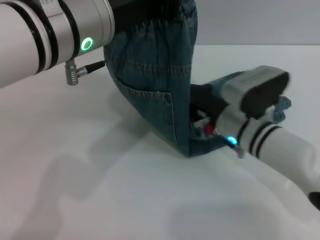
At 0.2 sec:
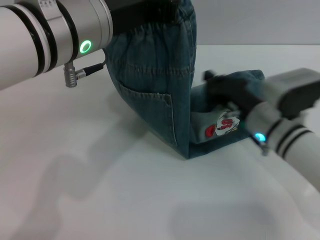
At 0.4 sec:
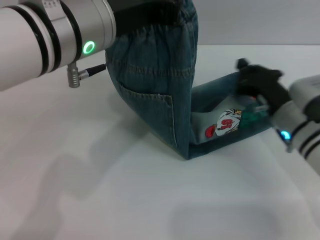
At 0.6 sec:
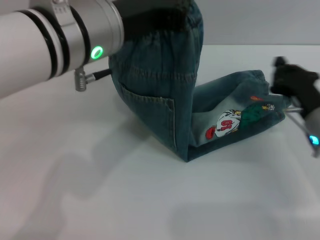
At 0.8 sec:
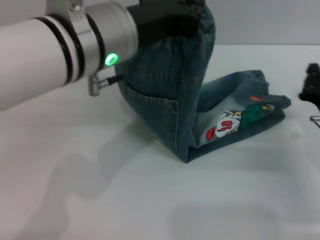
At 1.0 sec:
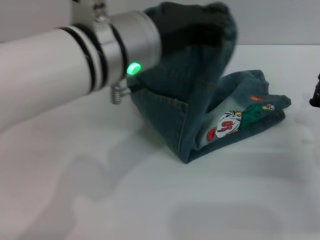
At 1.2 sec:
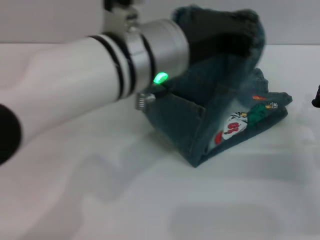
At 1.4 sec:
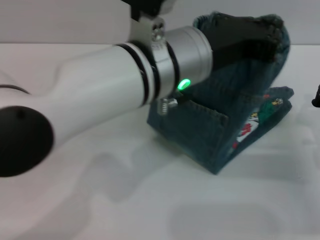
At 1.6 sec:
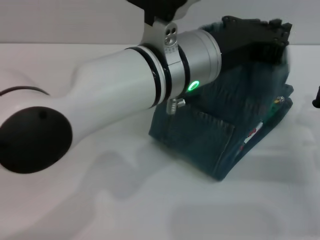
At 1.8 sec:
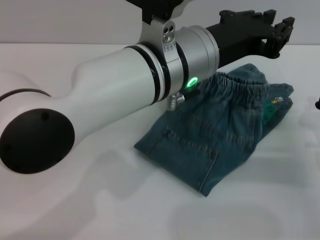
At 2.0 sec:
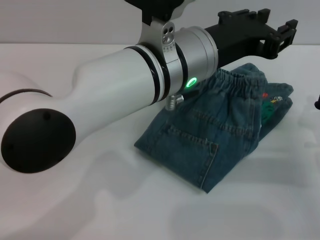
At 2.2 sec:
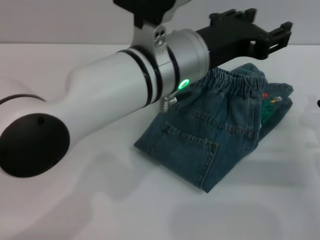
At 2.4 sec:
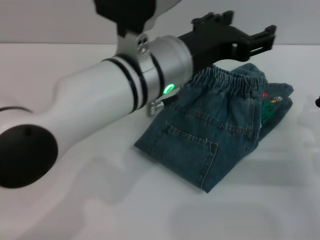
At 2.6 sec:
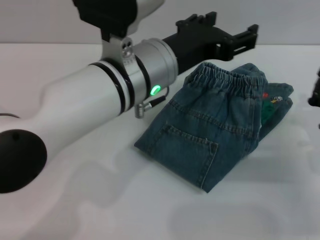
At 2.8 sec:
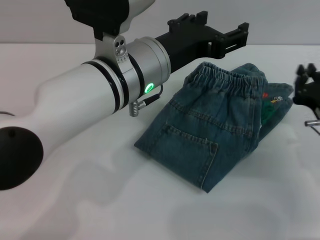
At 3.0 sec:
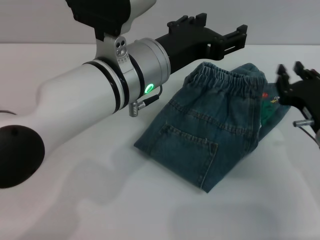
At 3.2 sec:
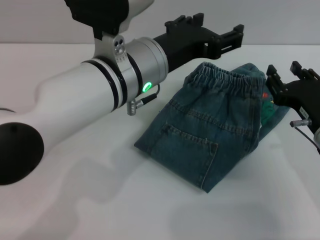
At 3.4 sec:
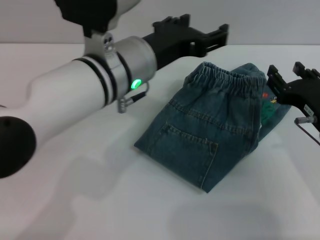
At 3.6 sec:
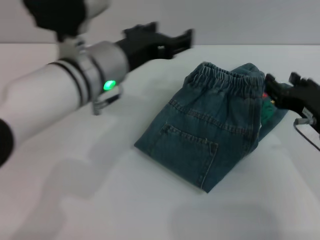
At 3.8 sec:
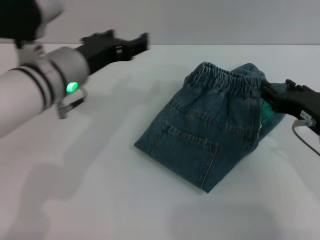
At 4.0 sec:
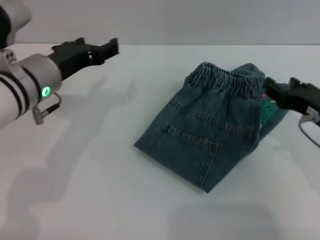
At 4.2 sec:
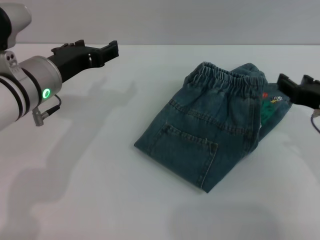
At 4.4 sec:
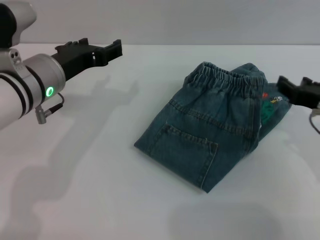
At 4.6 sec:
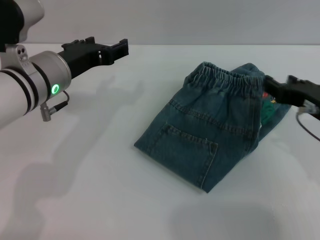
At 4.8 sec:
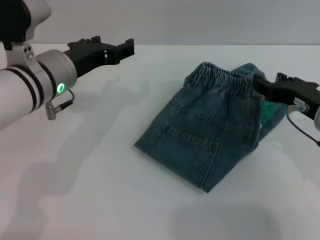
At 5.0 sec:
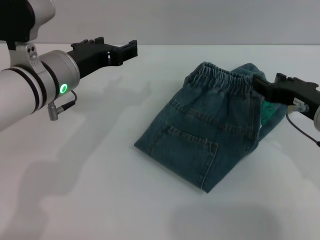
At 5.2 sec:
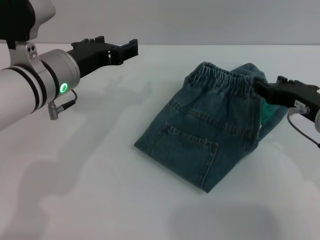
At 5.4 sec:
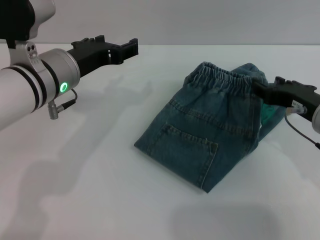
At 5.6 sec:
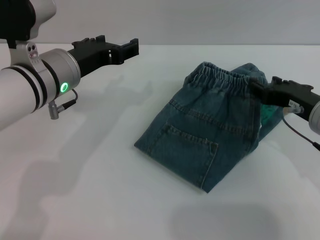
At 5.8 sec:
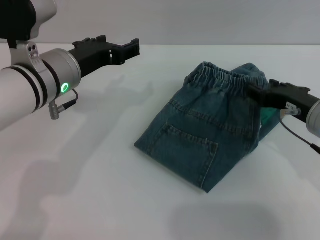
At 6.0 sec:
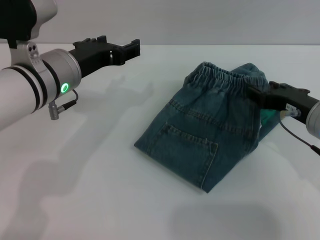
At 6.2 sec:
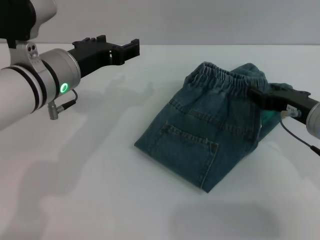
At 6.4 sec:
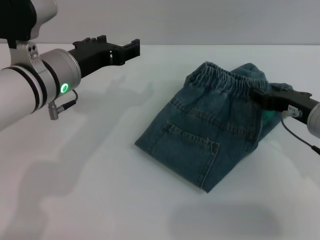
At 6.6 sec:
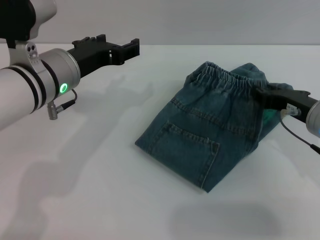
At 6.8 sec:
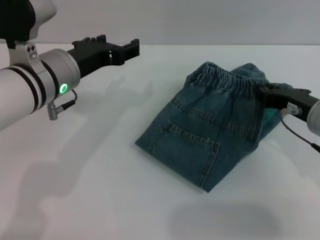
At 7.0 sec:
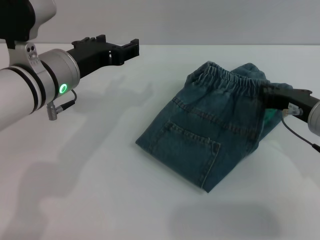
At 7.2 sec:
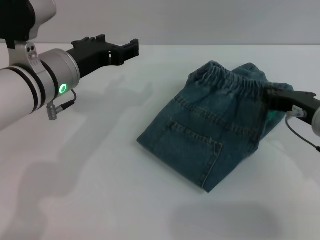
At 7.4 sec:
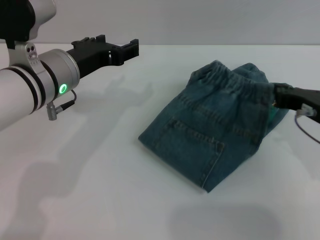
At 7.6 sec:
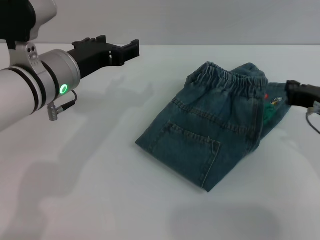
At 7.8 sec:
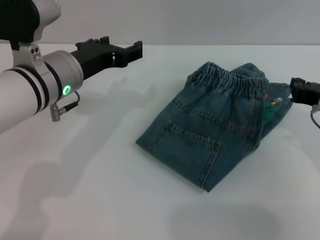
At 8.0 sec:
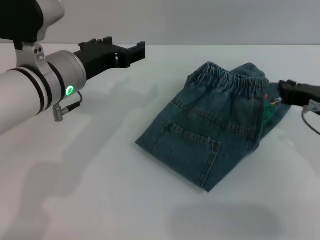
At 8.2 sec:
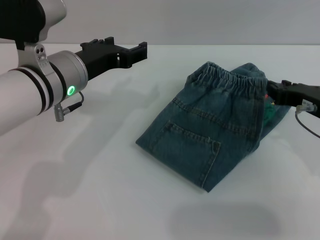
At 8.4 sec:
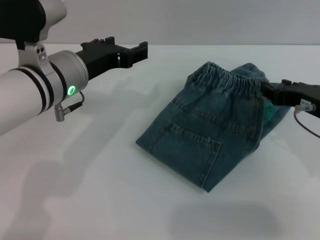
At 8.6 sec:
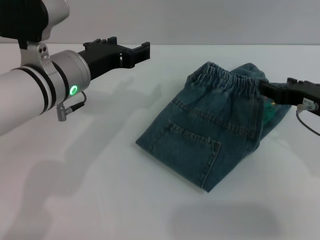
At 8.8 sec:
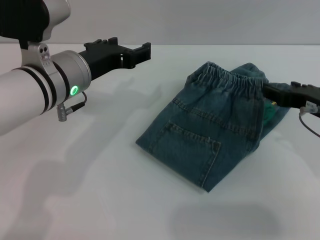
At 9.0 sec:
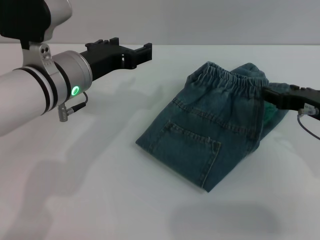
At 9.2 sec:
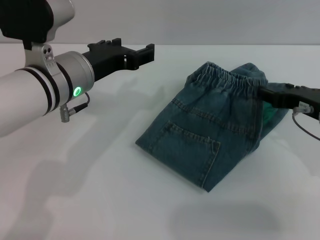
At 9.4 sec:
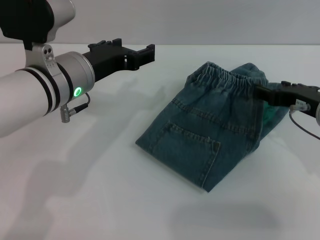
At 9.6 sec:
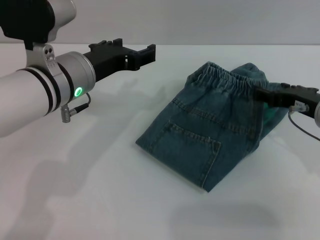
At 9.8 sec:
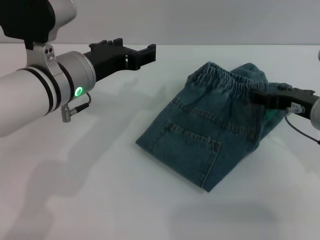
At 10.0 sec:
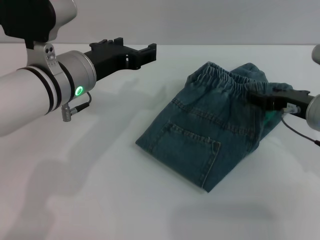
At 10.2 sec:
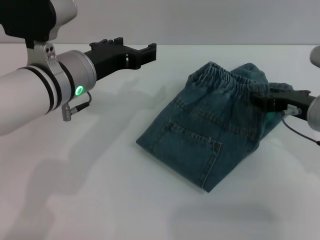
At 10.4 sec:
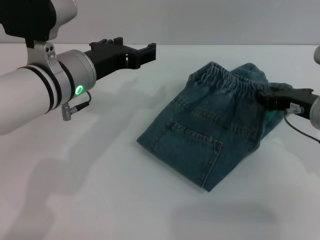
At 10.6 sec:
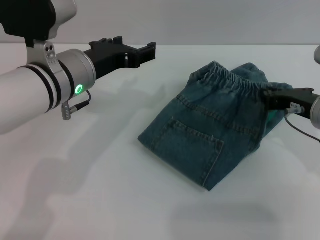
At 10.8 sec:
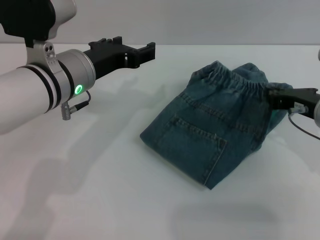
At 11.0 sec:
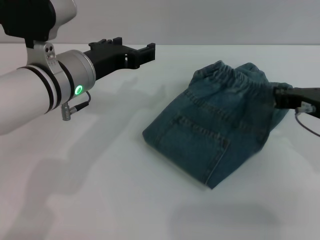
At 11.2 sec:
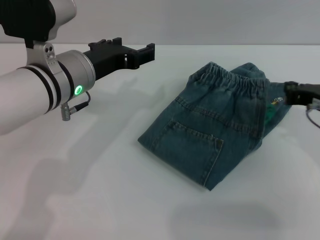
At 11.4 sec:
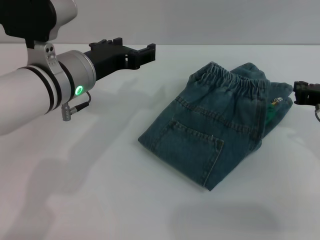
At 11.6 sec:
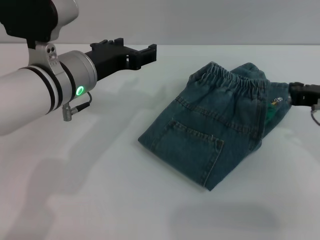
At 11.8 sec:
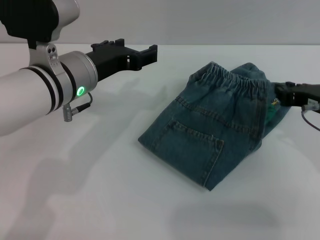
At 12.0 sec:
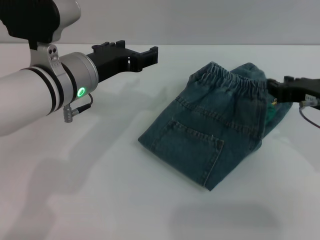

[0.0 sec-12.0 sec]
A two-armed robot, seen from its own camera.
Step, 0.0 sec to 2.0 sec: Fold the pants from left to right with the left gripper.
0.0 sec to 1.6 sec: The right gripper heads to the right, covering some 15 cm. The left gripper is displaced to the right by roughly 10 cm.
1.6 sec to 3.0 sec: The right gripper moves approximately 5 cm; the left gripper changes place by approximately 5 cm, and opens up.
3.0 sec to 4.4 sec: The right gripper goes approximately 5 cm upward, and opens its fingers. Meanwhile the left gripper shifts some 10 cm to the left.
4.4 sec to 6.0 sec: There are only small adjustments of the grippers.
6.0 sec to 7.6 sec: The right gripper closes.
7.6 sec to 9.0 sec: The right gripper opens up.
9.0 sec to 10.4 sec: There are only small adjustments of the grippers.
10.4 sec to 12.0 sec: The right gripper closes up.

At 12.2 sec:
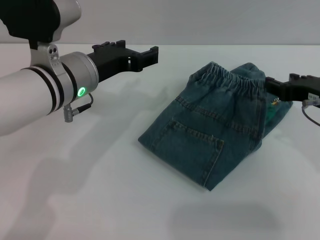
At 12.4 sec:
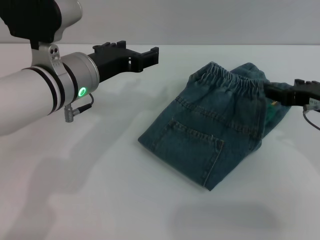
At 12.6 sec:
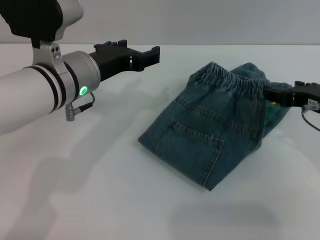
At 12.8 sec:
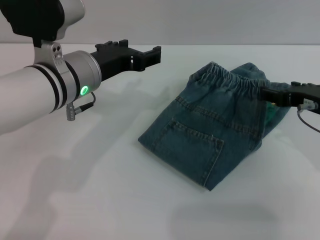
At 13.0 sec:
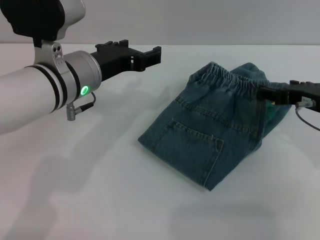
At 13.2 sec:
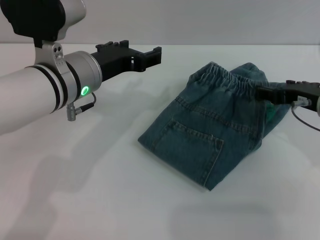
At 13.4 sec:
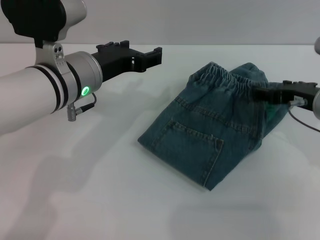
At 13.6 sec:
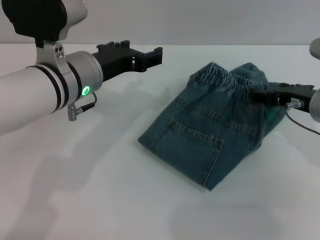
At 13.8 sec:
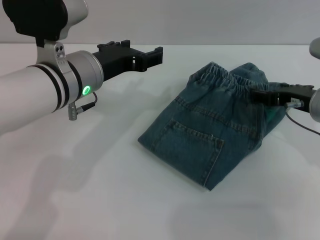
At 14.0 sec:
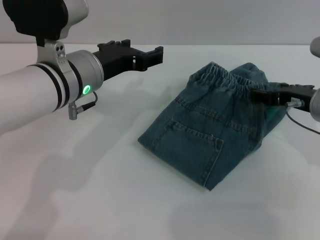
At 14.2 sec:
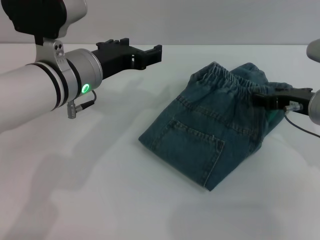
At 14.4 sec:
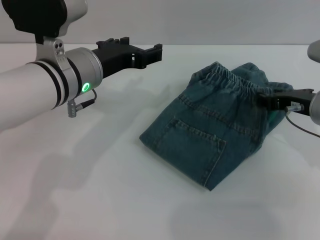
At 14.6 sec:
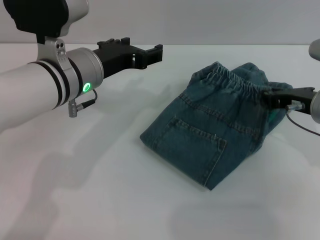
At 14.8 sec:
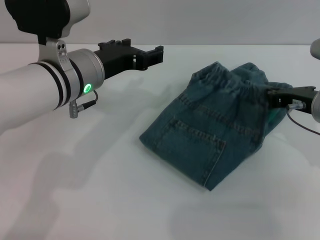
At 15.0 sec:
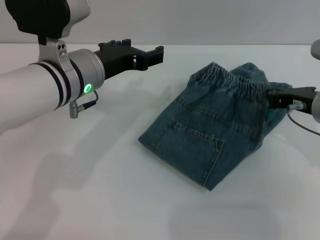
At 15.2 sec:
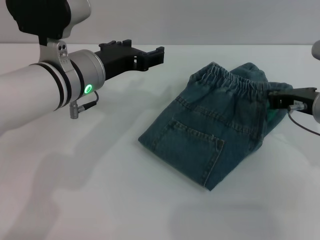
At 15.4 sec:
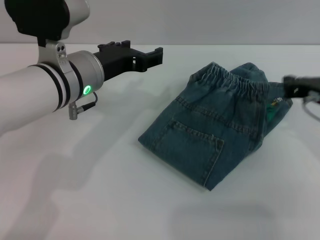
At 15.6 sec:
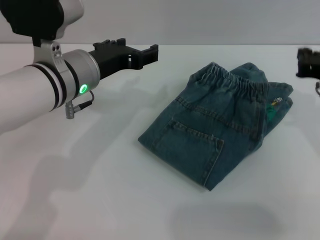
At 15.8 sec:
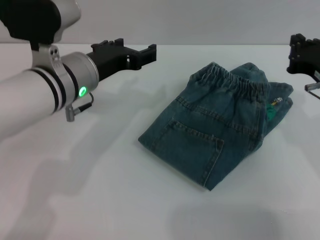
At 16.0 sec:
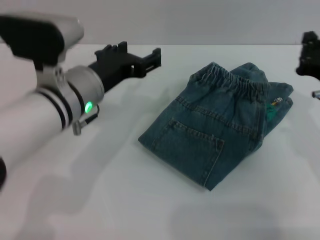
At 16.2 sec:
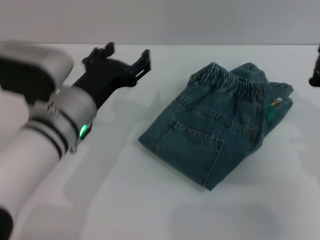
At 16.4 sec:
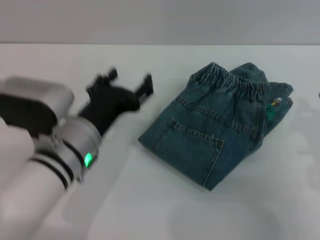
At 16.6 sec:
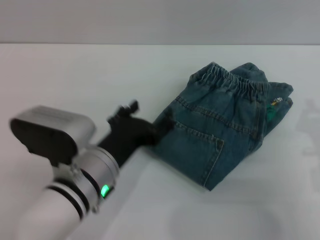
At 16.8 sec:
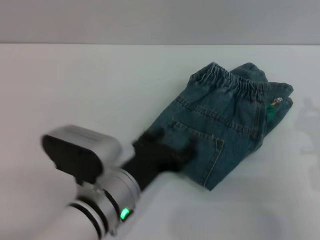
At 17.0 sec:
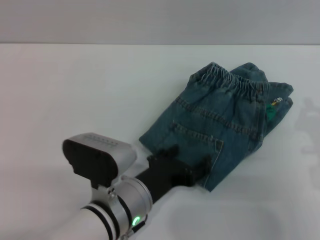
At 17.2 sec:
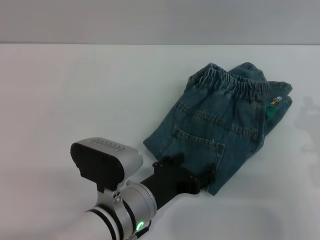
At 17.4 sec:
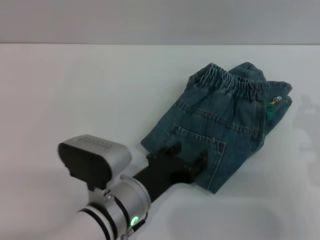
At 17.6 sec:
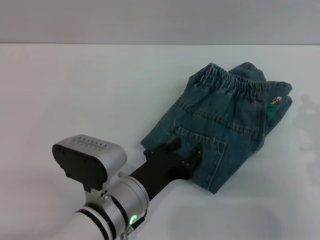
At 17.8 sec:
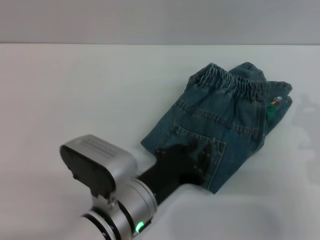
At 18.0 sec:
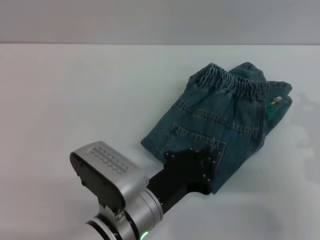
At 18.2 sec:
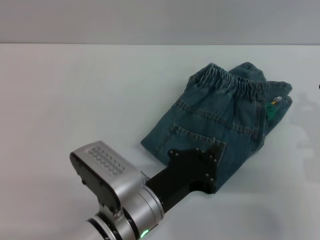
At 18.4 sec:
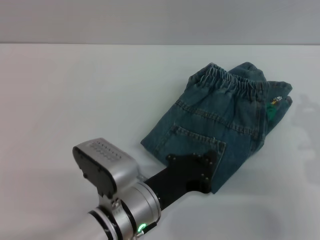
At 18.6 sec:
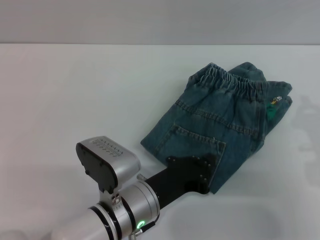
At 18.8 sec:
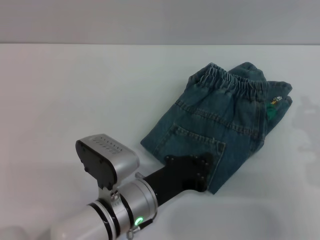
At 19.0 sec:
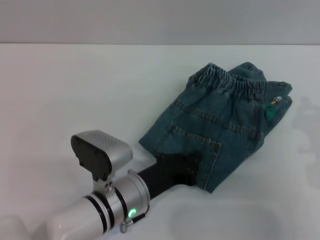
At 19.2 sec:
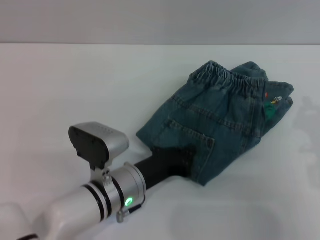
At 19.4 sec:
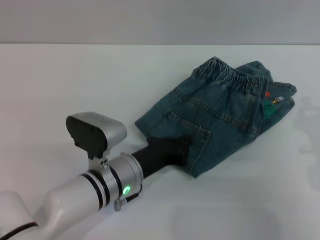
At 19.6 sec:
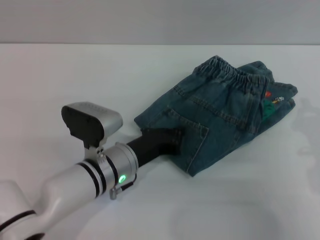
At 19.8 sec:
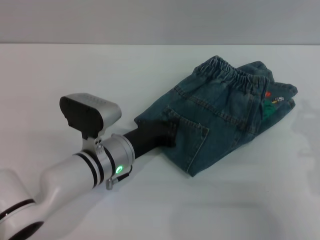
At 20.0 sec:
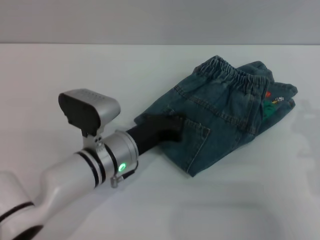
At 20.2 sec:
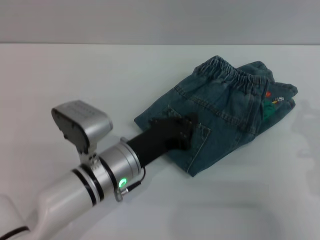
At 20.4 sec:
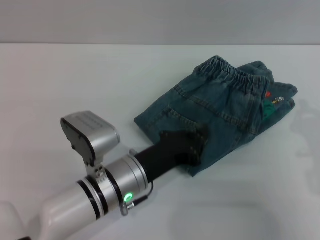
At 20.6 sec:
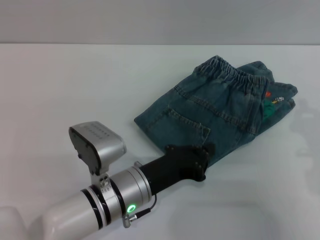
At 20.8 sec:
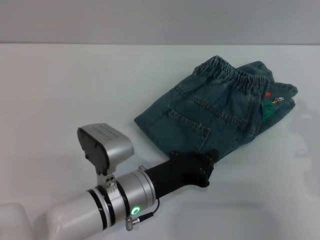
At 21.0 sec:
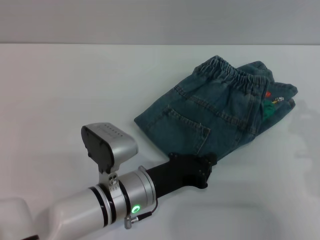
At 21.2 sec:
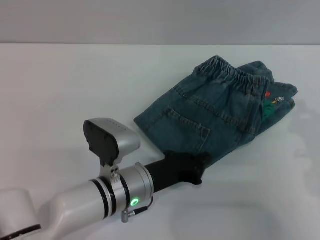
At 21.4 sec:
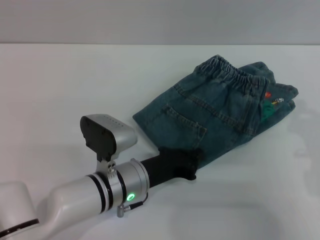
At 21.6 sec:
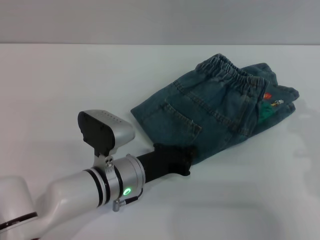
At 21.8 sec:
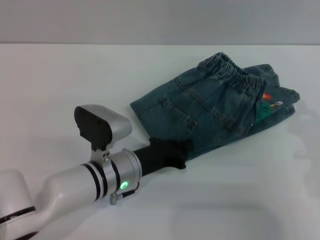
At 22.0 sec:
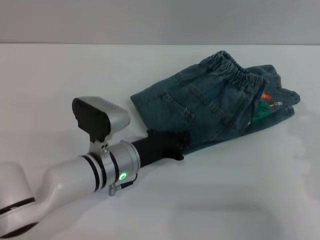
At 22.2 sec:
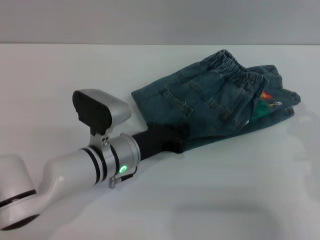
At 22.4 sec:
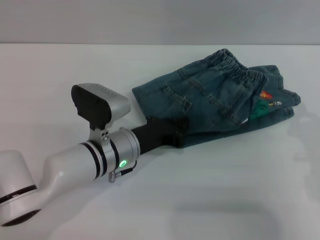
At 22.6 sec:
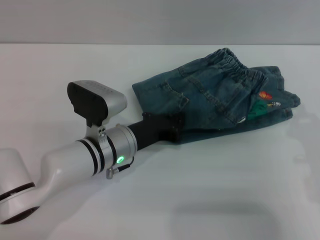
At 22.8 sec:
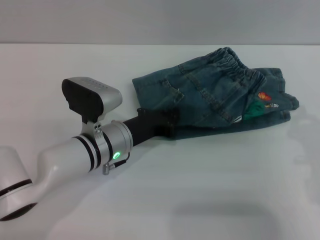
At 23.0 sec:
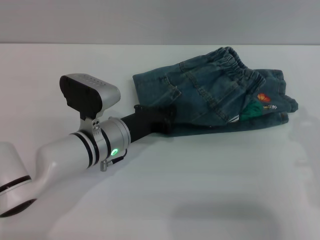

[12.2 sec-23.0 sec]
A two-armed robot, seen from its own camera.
12.2 sec to 13.8 sec: The right gripper opens its fingers.
13.8 sec to 15.2 sec: The right gripper closes up.
15.2 sec to 16.8 sec: The left gripper goes approximately 15 cm backward and downward; the right gripper heads backward, covering some 10 cm.
16.8 sec to 18.4 sec: The left gripper closes.
18.4 sec to 20.0 sec: The left gripper shifts about 10 cm forward.
20.0 sec to 21.4 sec: The grippers stay close to where they were, moving slightly.
21.4 sec to 23.0 sec: The left gripper travels forward by some 5 cm.
